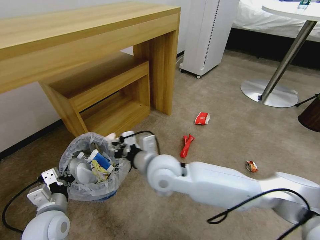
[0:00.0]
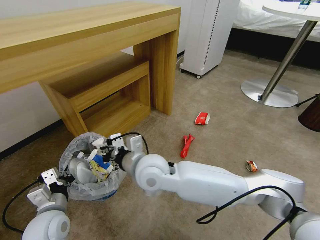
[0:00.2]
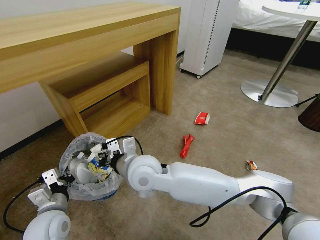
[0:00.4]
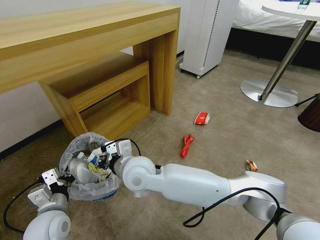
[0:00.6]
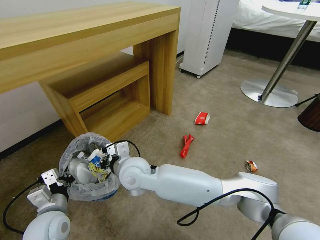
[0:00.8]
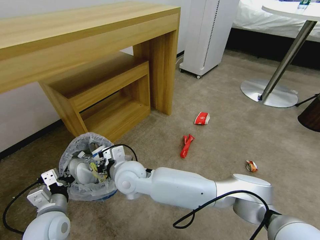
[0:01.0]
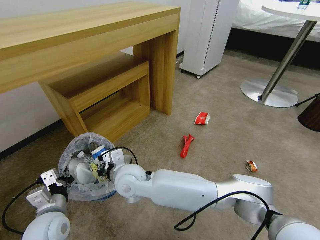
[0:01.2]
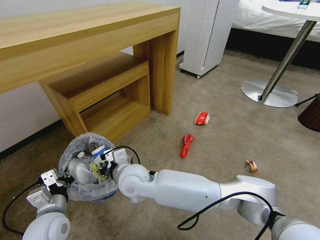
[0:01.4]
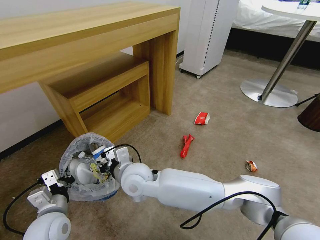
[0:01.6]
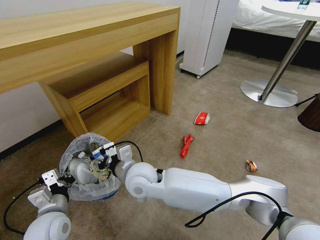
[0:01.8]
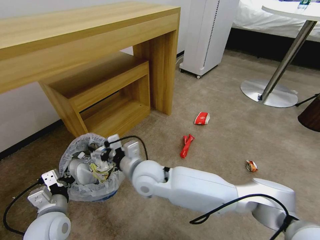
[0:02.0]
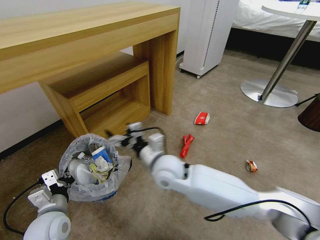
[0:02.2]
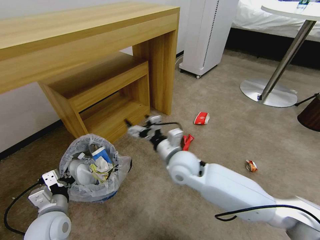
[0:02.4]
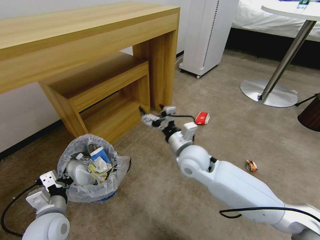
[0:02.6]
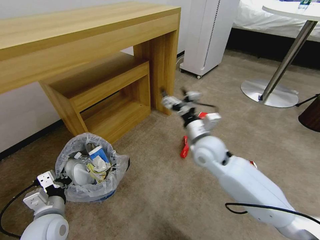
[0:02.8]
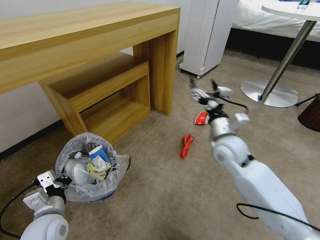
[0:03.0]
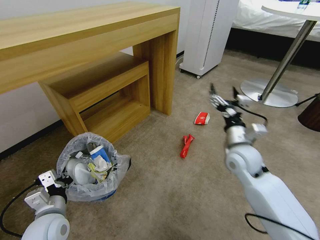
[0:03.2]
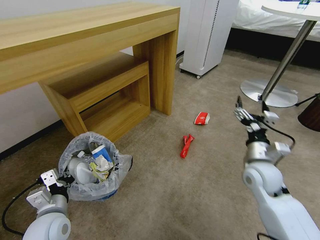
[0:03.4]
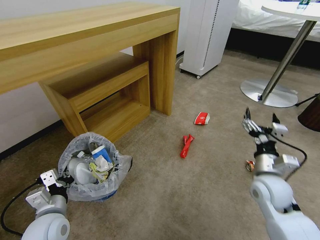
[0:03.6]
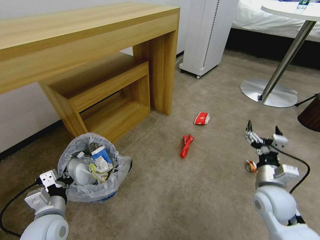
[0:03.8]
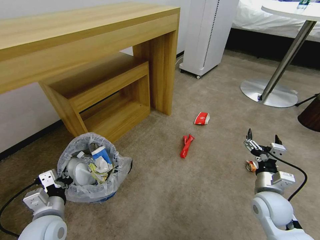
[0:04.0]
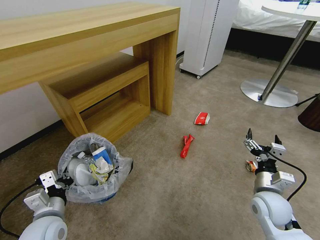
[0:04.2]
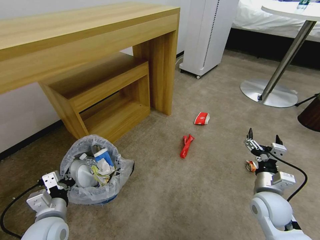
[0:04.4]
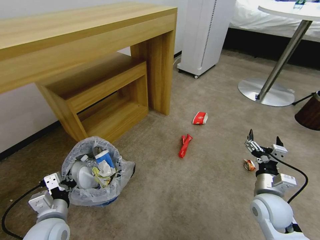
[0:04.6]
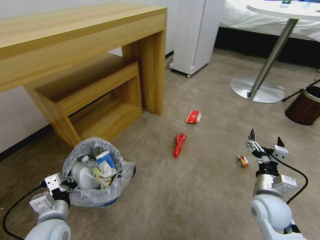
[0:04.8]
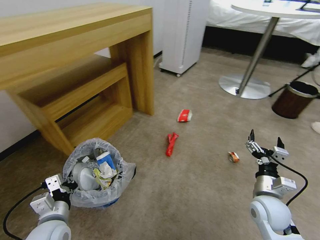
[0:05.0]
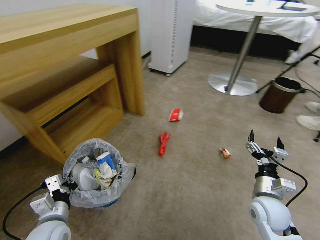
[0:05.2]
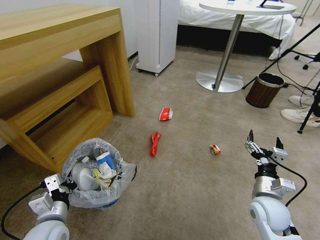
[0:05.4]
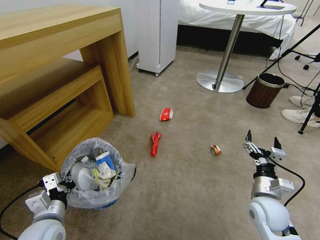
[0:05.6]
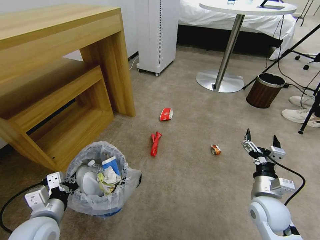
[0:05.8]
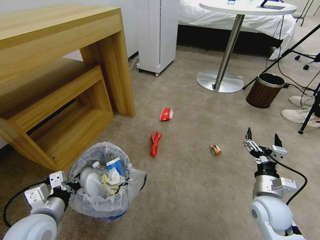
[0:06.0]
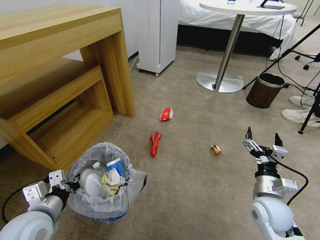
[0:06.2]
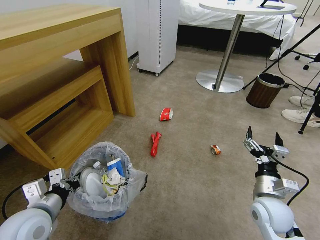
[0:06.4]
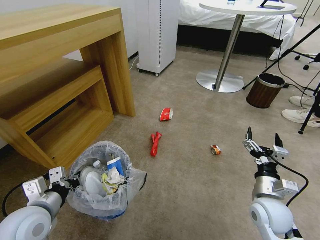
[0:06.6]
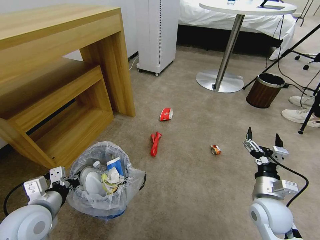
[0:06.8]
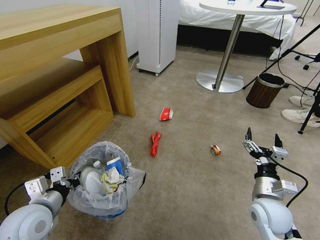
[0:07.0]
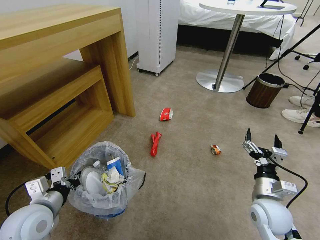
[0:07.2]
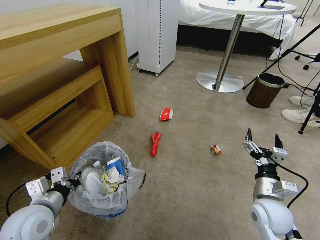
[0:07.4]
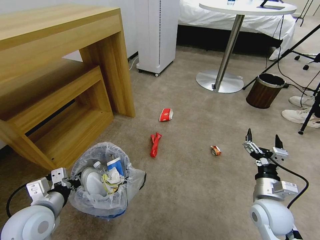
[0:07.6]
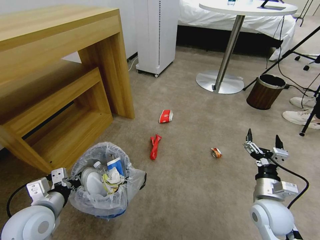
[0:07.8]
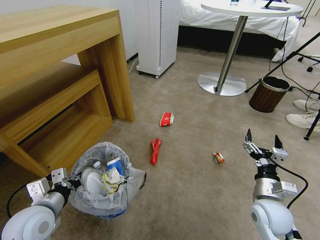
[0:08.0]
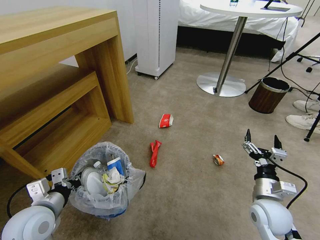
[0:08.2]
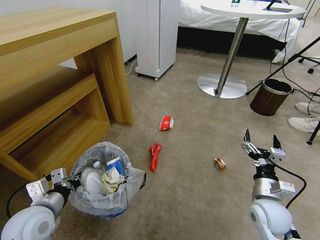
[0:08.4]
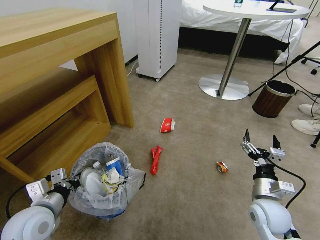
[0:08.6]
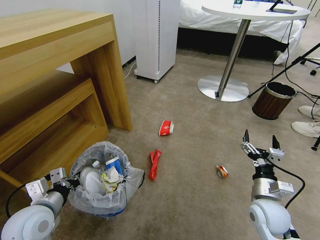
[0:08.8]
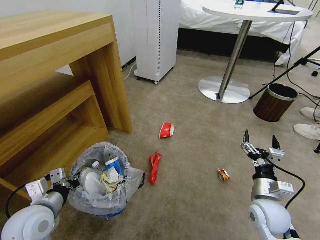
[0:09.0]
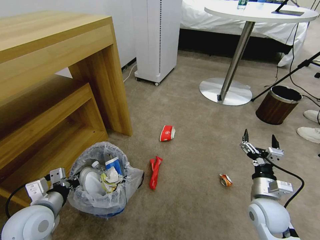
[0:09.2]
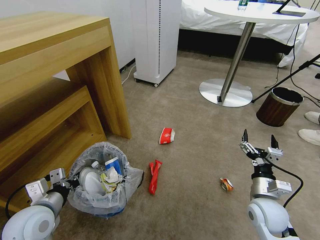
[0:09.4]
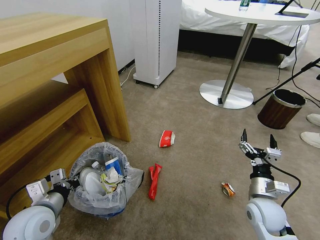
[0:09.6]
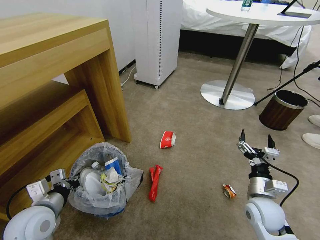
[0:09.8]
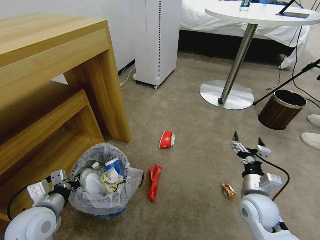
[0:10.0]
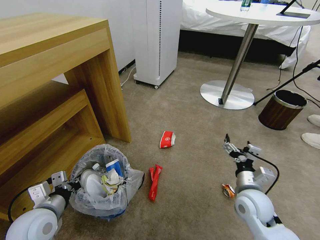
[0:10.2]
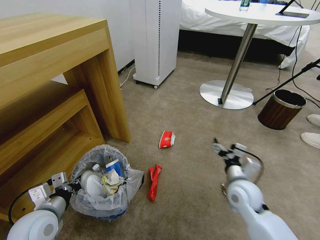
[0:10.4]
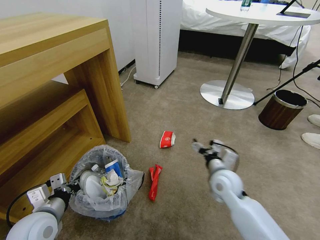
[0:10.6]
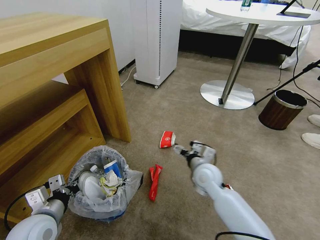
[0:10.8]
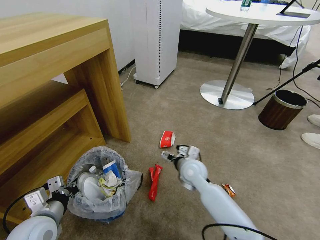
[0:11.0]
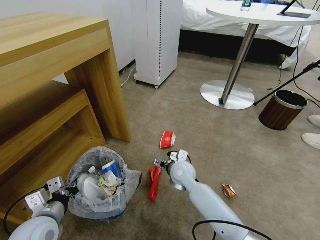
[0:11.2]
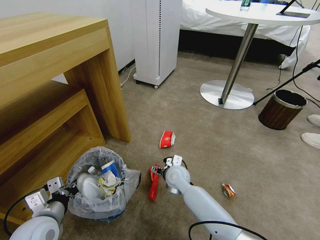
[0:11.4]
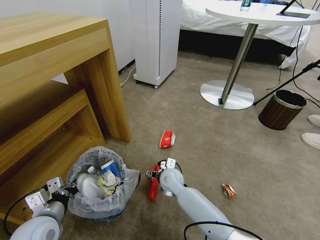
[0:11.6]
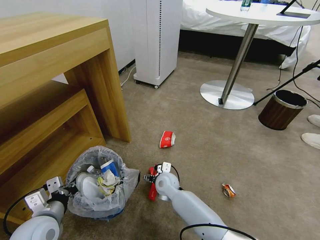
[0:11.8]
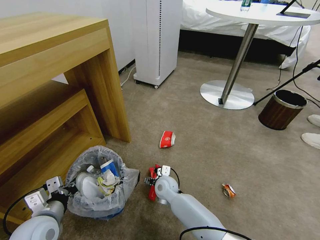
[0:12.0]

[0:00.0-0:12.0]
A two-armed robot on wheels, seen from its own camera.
Task of the whole recording: Pick up the trash bin and place the garbage on the floor into it.
0:00.0 to 0:01.6: The right gripper travels to the left and downward by roughly 10 cm.
0:01.6 to 0:03.0: The right gripper moves to the right, some 30 cm, and opens up.
0:03.0 to 0:04.4: The right gripper is displaced backward, to the right and downward by about 20 cm.
0:04.4 to 0:06.0: The left gripper ends up roughly 5 cm from where it was.
0:06.0 to 0:07.6: The grippers make only small movements.
0:09.0 to 0:10.4: The right gripper ends up roughly 5 cm from where it was.
0:10.4 to 0:12.0: The right gripper goes some 25 cm to the left and downward.

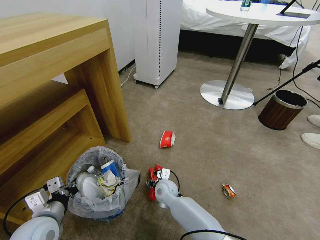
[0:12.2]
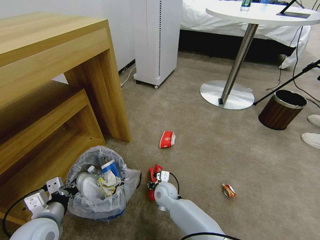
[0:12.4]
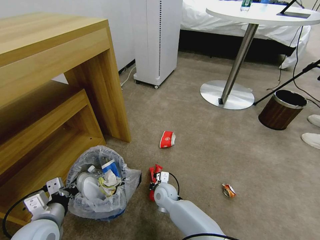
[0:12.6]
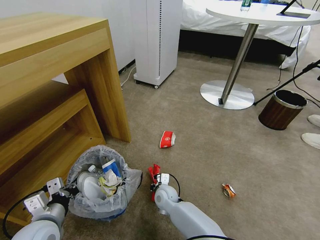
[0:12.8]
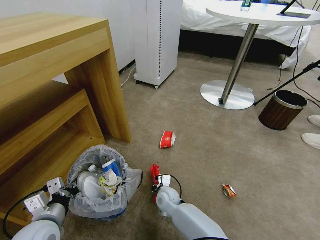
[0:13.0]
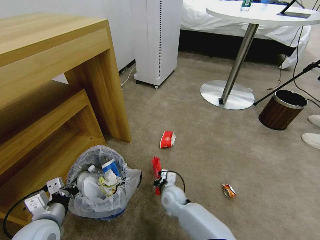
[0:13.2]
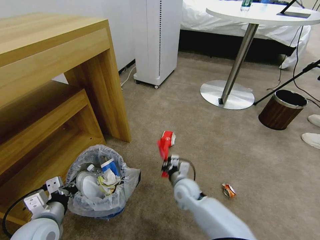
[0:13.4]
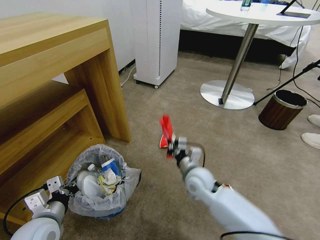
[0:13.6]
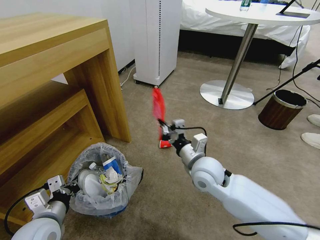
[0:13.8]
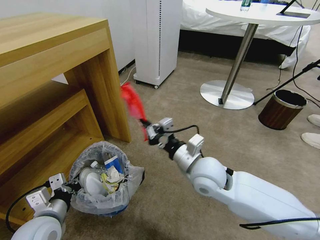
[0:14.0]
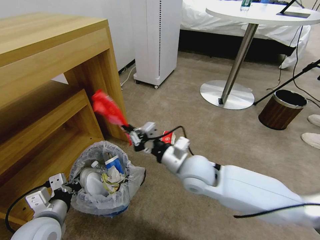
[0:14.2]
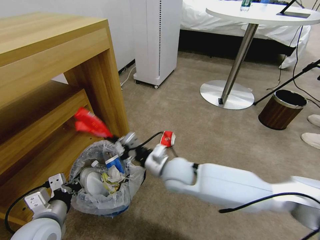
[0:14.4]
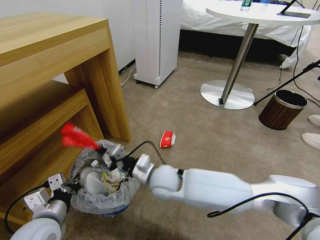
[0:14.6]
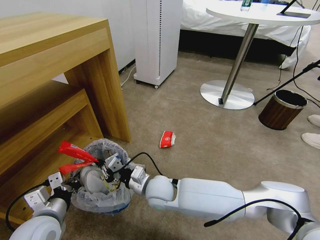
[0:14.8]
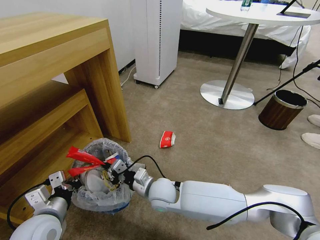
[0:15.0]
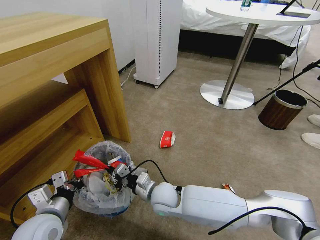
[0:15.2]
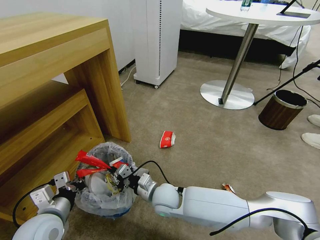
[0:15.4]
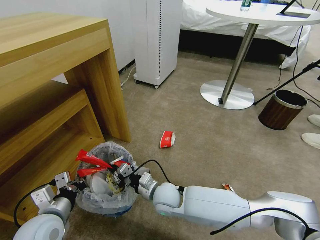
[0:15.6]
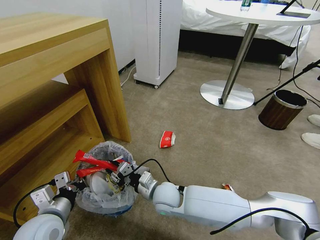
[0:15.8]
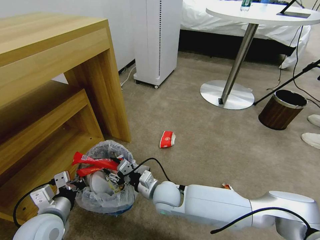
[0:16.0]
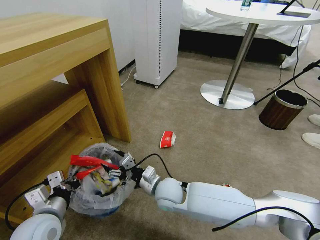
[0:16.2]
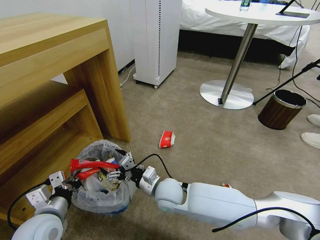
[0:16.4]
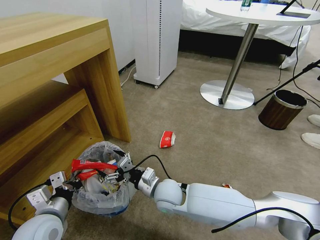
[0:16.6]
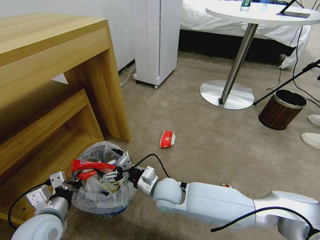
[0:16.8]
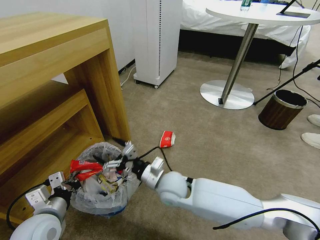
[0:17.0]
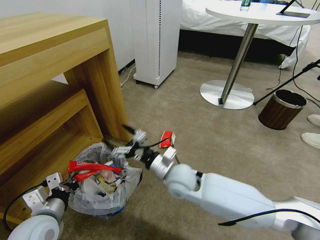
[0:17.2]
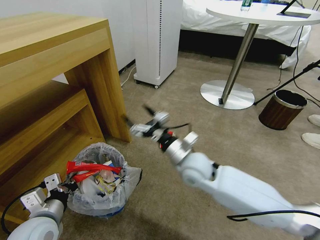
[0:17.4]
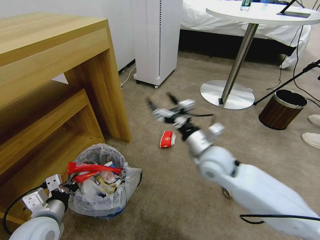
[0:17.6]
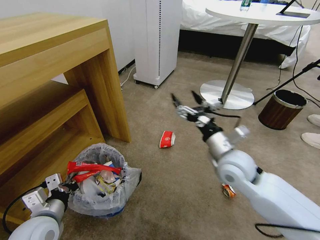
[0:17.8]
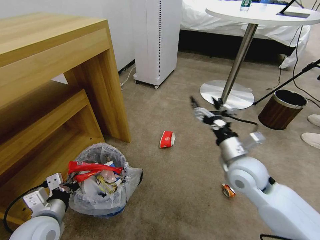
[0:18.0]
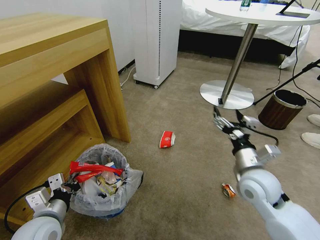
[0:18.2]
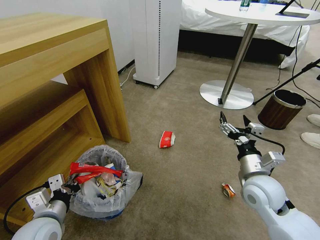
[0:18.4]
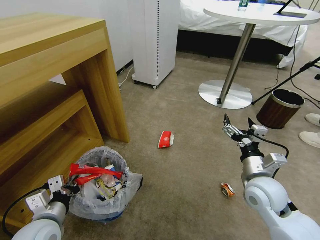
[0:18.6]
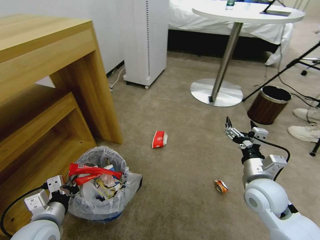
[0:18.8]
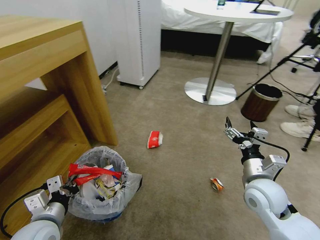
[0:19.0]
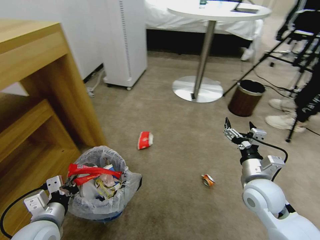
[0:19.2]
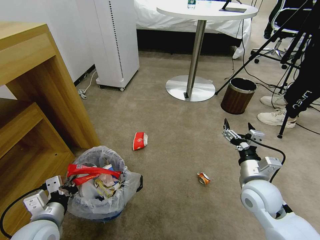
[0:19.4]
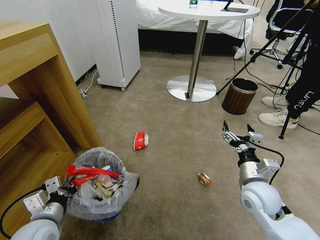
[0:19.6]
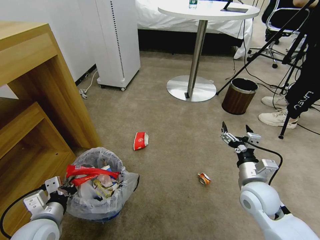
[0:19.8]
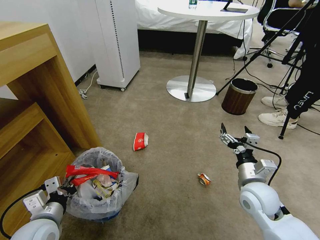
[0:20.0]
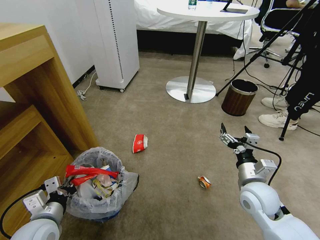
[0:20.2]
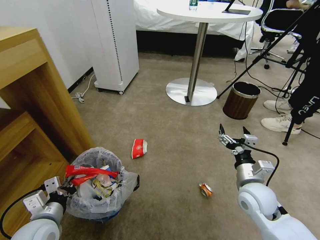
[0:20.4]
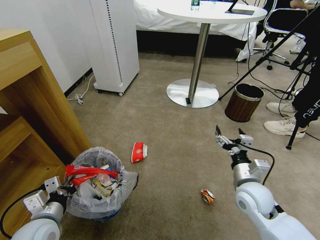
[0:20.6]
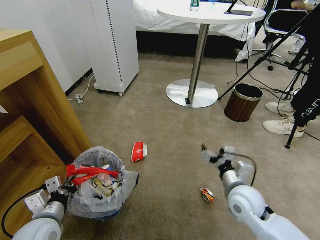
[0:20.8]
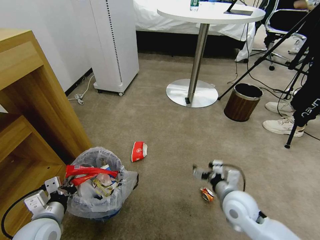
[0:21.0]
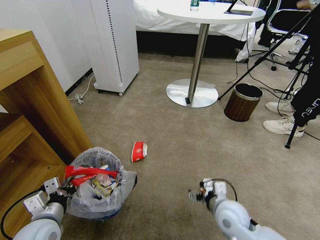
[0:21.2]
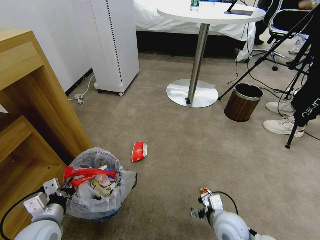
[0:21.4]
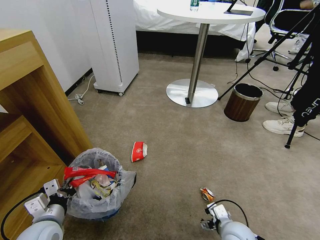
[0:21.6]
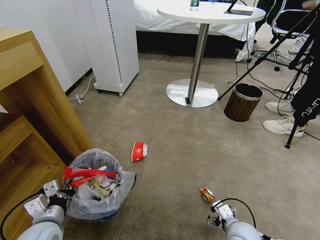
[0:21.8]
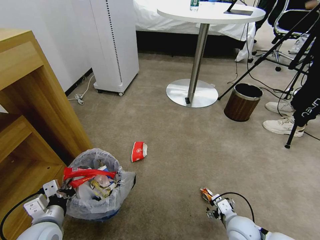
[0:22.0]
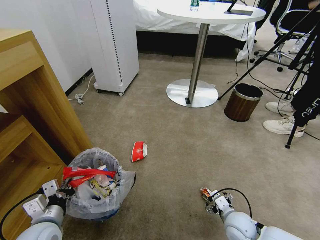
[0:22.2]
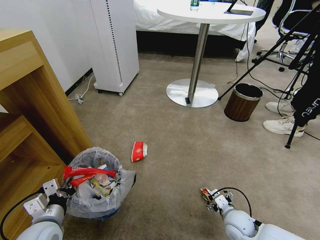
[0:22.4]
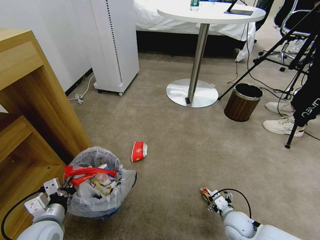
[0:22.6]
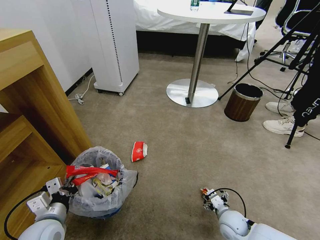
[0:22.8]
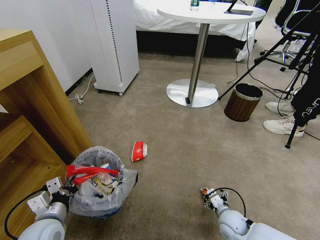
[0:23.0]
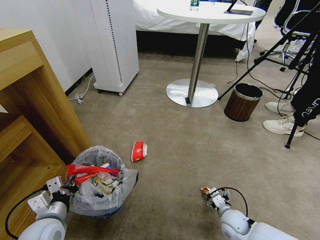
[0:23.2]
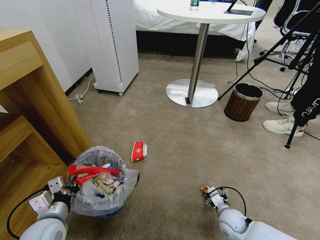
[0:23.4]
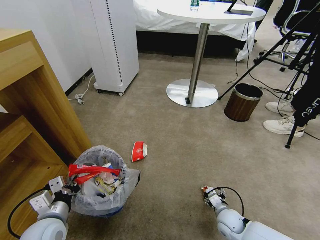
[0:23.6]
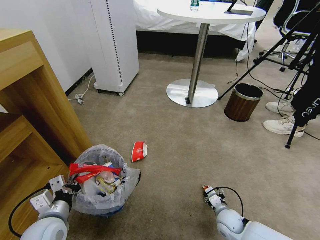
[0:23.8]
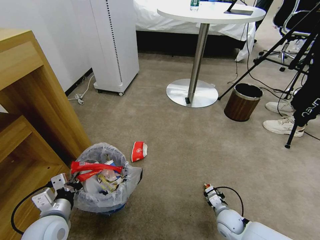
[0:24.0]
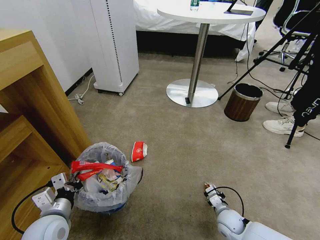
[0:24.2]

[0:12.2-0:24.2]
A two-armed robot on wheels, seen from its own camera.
Task of the whole recording: Pick up the trash bin and place the garbage on the floor into it.
0:12.2 to 0:13.8: The right gripper is displaced upward and to the right by roughly 25 cm, and closes up.
0:13.8 to 0:15.2: The right gripper heads to the left and downward, covering approximately 15 cm.
0:15.2 to 0:16.6: The right gripper opens.
0:16.6 to 0:18.2: The right gripper shifts about 25 cm to the right and upward.
0:18.2 to 0:19.8: The right gripper is displaced downward by approximately 5 cm.
0:19.8 to 0:21.2: The right gripper shifts some 10 cm to the left and downward.
0:21.2 to 0:22.6: The right gripper travels downward and to the right by some 10 cm.
0:22.6 to 0:24.2: The right gripper ends up some 5 cm from where it was, and closes.
